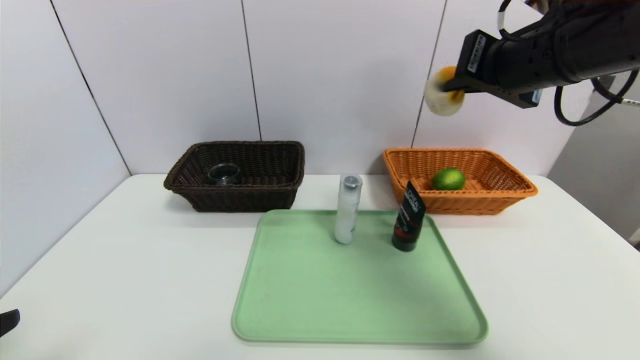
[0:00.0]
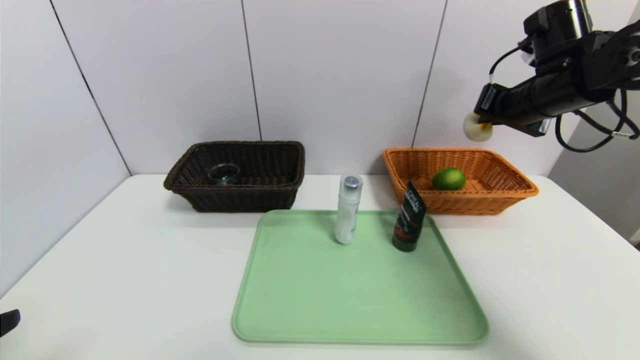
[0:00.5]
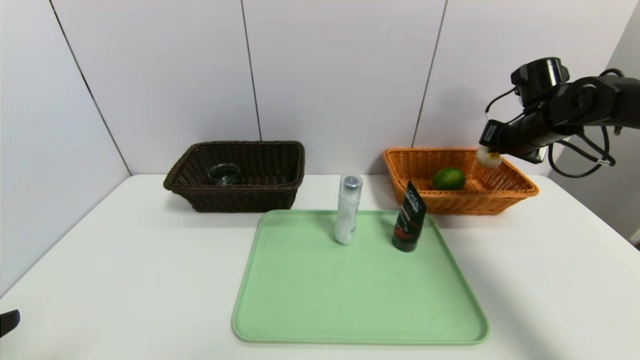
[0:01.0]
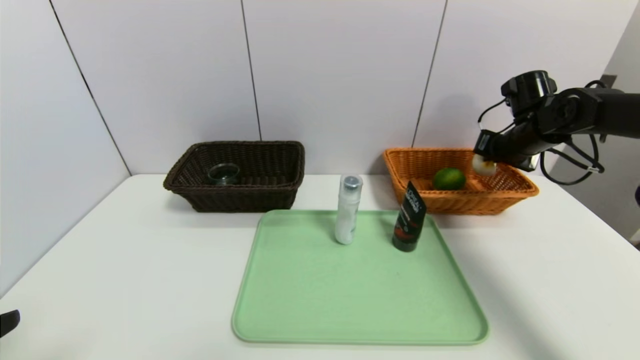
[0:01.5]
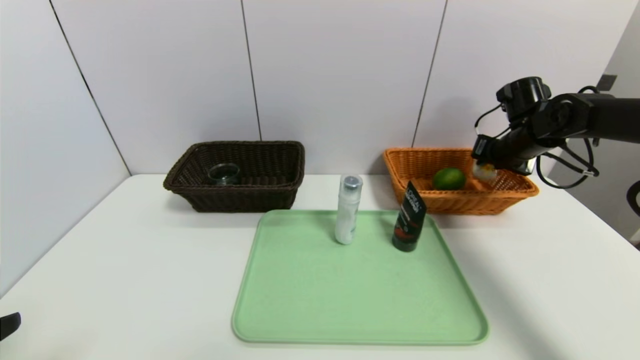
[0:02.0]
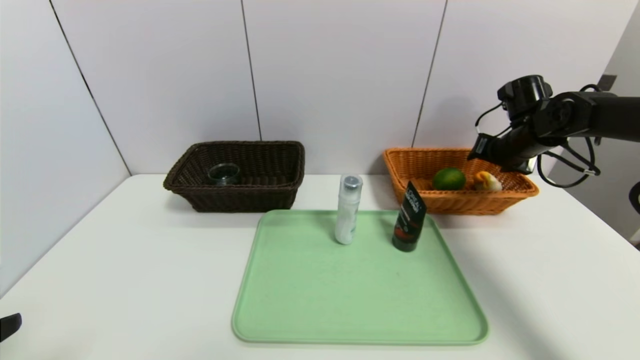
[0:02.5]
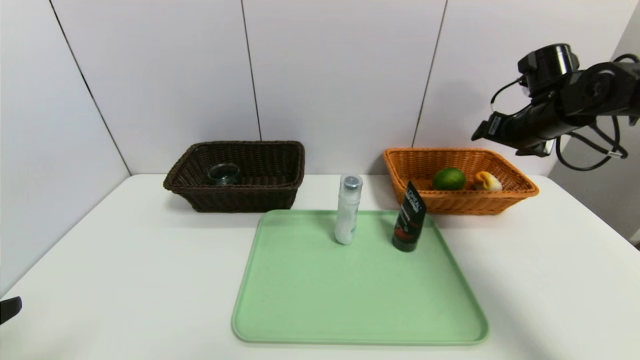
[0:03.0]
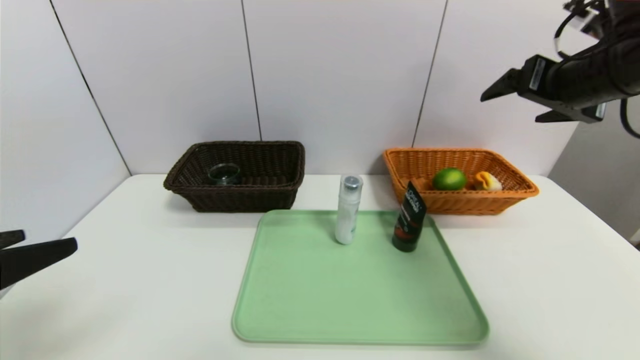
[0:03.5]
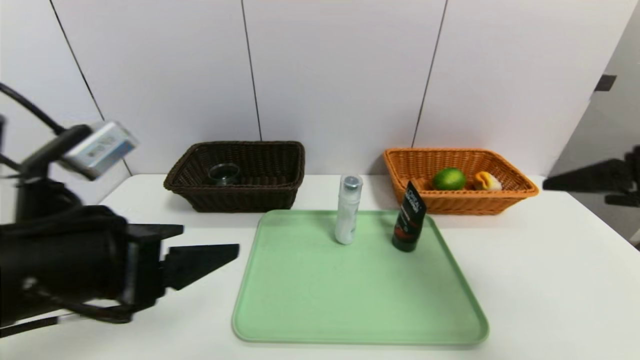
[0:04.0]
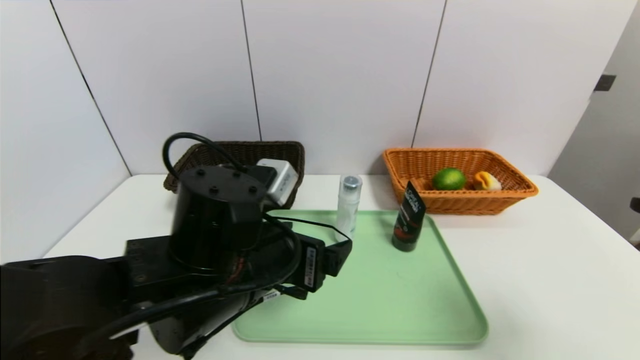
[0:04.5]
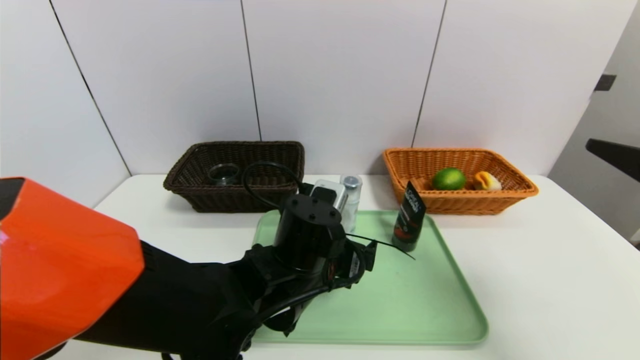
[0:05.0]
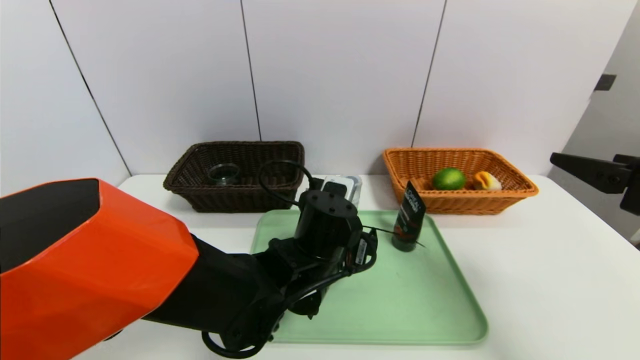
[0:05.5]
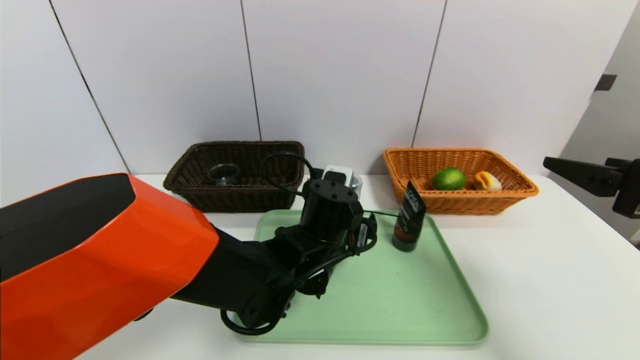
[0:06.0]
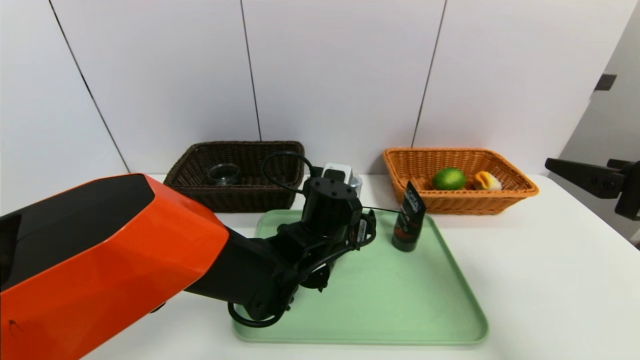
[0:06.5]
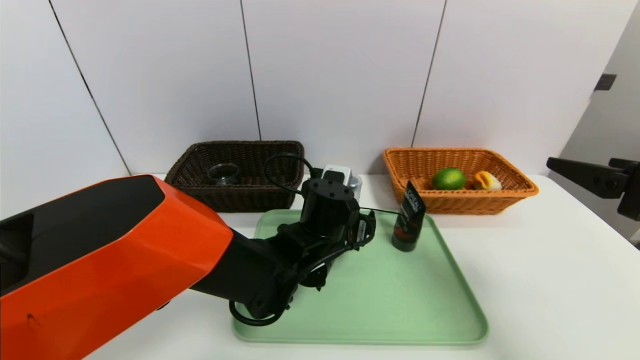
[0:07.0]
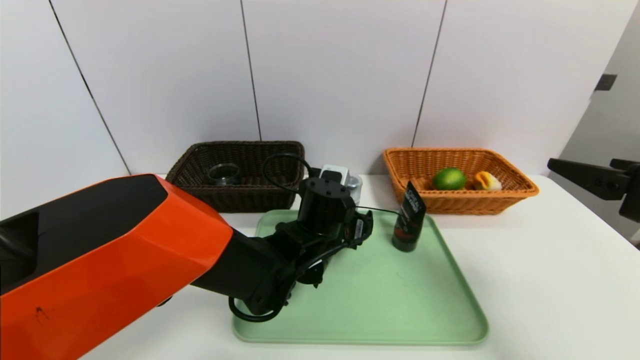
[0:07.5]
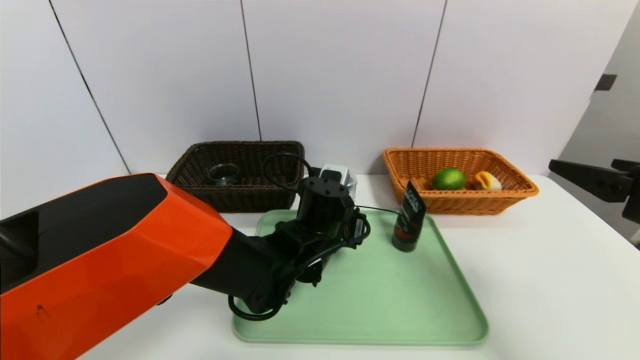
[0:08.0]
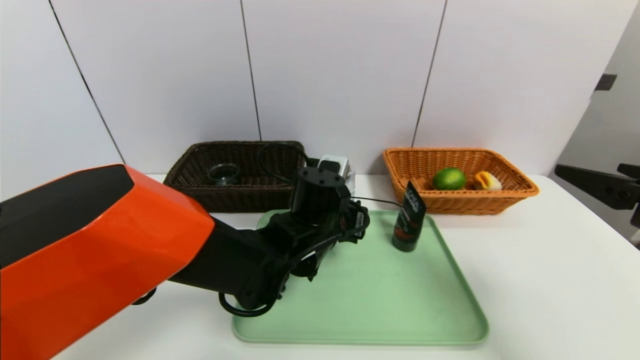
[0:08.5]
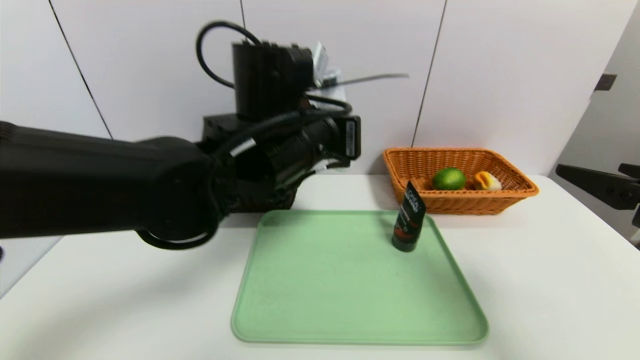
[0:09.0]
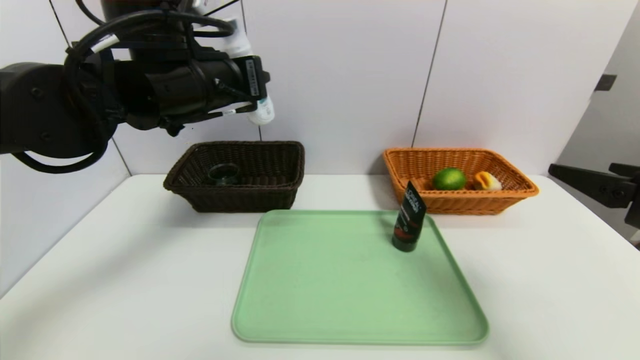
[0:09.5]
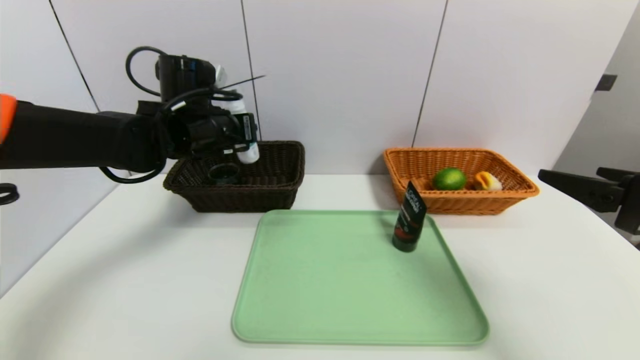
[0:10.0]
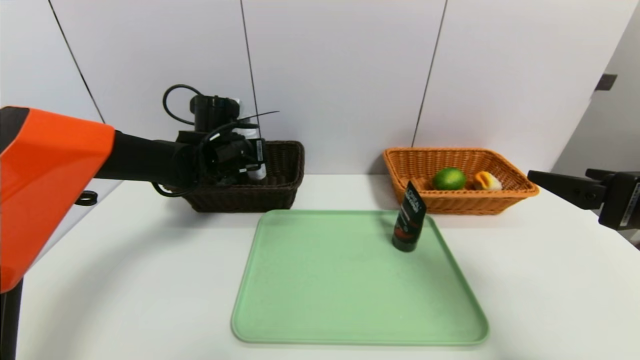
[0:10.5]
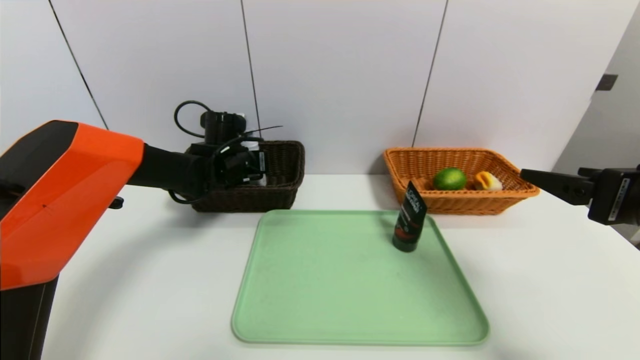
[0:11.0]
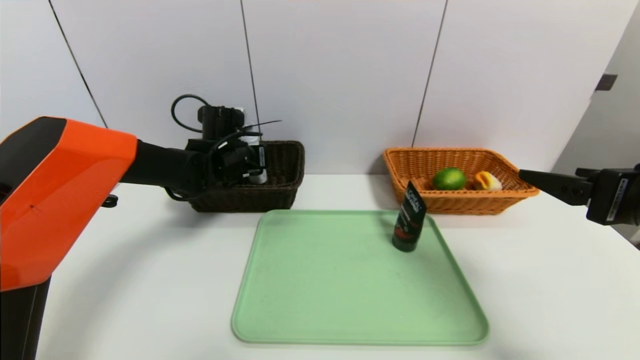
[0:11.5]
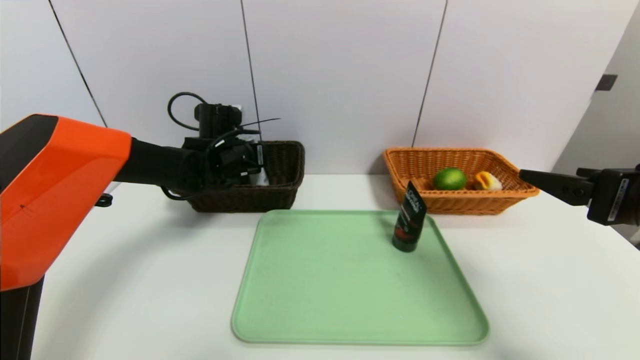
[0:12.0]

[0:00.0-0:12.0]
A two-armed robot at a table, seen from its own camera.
Task of the whole recording: place the food in the right basket with the right gripper, and place the non food items in the left basket with the left gripper.
Step, 0:00.0 to 0:02.5: Grasp the egg yolk pastry and put it in the right basket.
0:00.0 to 0:02.0: The right gripper goes approximately 25 cm forward, downward and to the right.
0:02.0 to 0:04.0: The left gripper travels forward and to the right by some 15 cm. The right gripper goes about 30 cm backward, and opens up.
0:04.0 to 0:06.0: The left gripper travels to the right, forward and downward by about 25 cm.
0:06.0 to 0:08.0: The left gripper closes.
0:08.0 to 0:10.0: The left gripper heads to the left, upward and forward, covering about 25 cm.
0:10.0 to 0:12.0: The left gripper goes about 10 cm downward and forward.

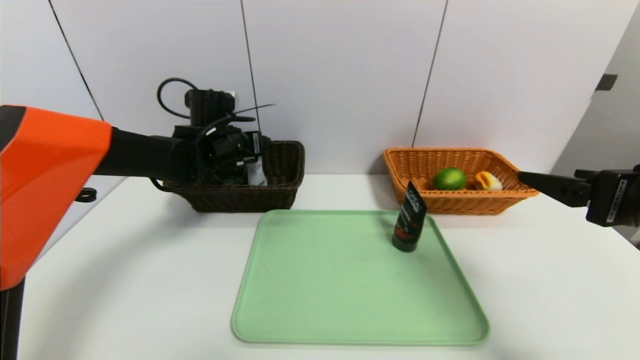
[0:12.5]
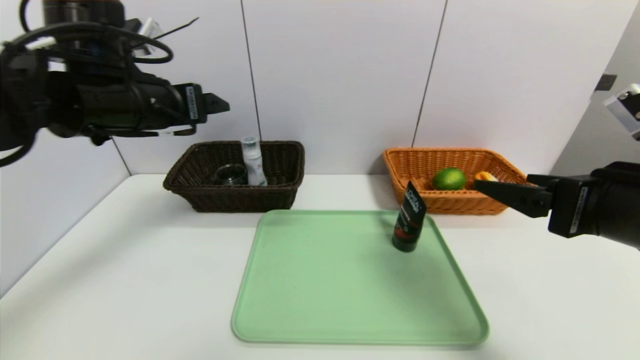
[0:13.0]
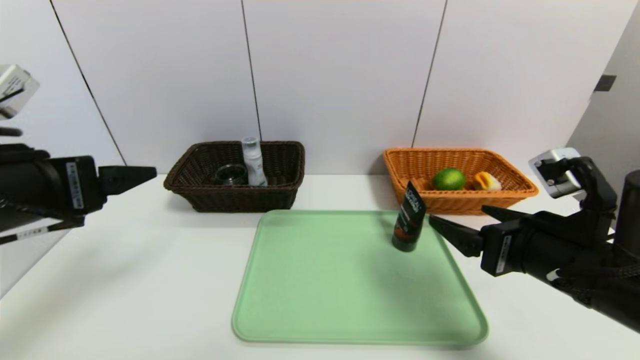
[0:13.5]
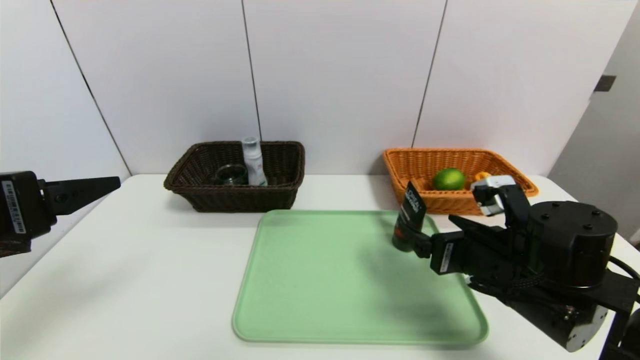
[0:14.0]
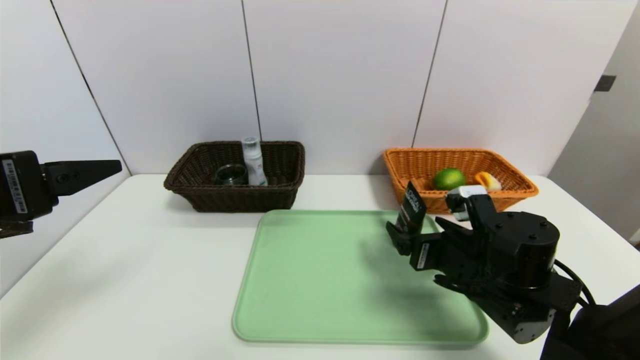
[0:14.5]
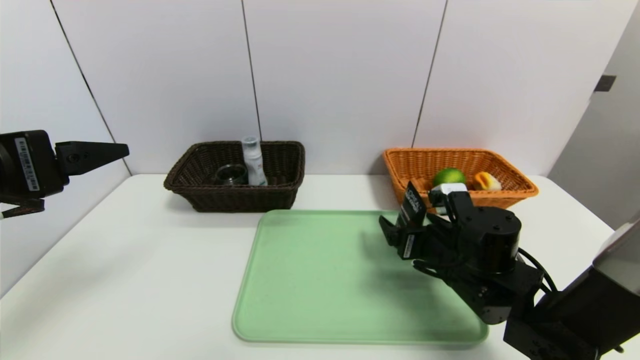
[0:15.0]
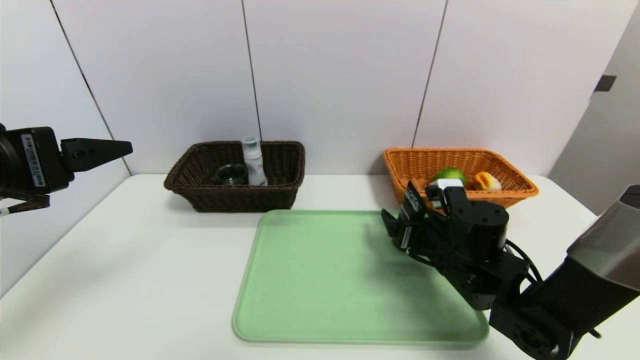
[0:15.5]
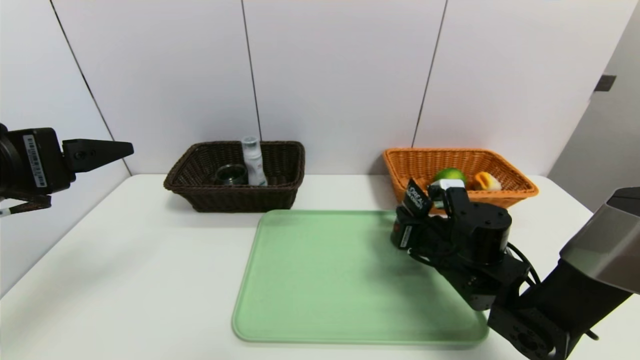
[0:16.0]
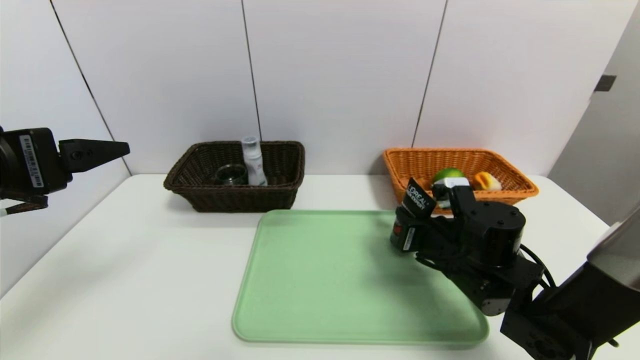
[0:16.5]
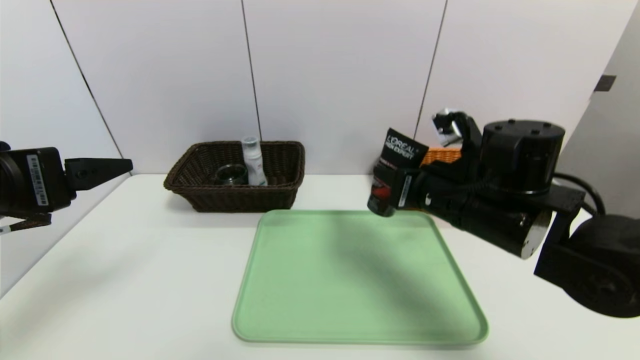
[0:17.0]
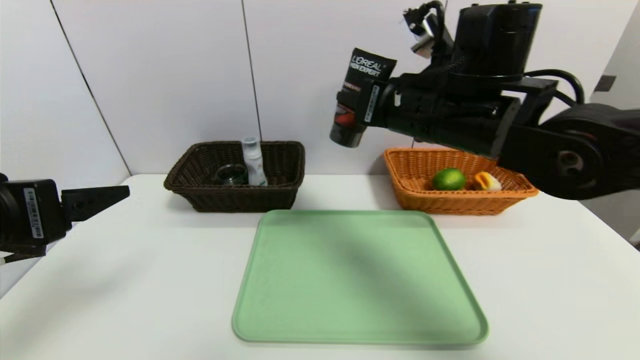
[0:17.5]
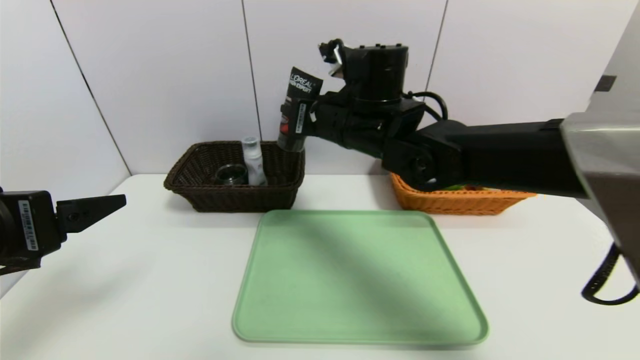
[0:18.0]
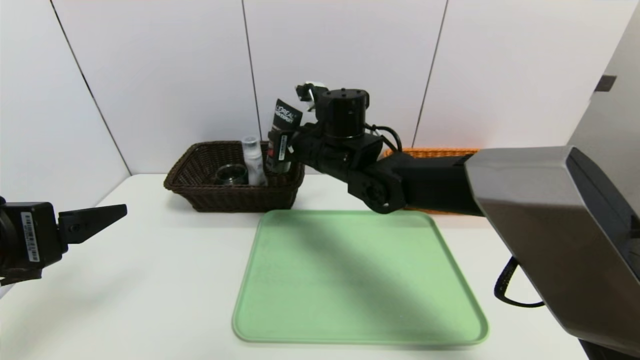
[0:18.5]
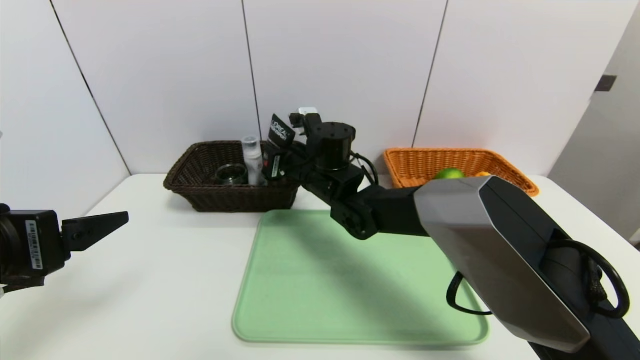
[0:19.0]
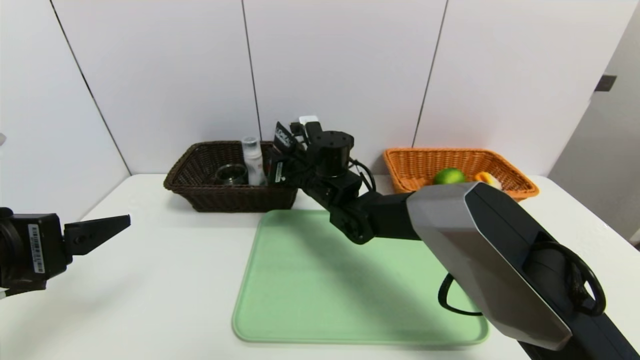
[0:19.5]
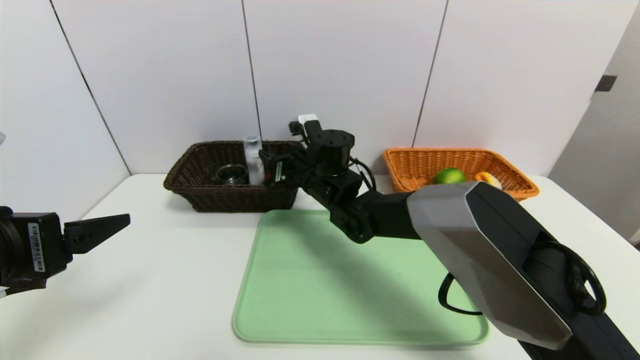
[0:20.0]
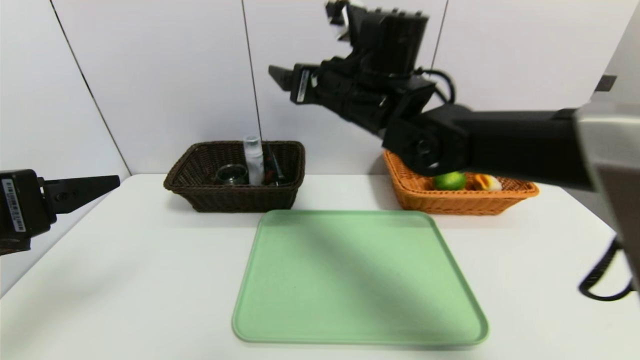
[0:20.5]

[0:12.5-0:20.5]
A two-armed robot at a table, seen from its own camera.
Task of the whole recording: place the food in the right basket with the right gripper, and place the non food items in the left basket with the left gripper.
Step, 0:13.0 to 0:20.0: Grasp the soft cleanser and put it in the left basket.
0:12.5 to 0:14.5: The right gripper is displaced downward, to the left and forward by roughly 20 cm, while the left gripper goes some 30 cm backward.
0:14.5 to 0:16.5: The right gripper closes.
0:16.5 to 0:18.5: The right gripper shifts roughly 25 cm to the left, upward and forward.
0:18.5 to 0:20.5: The right gripper is displaced upward by about 10 cm, and opens its fingers.
